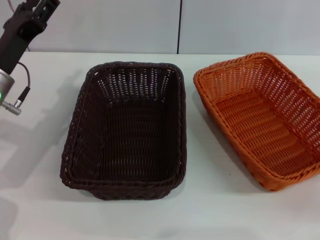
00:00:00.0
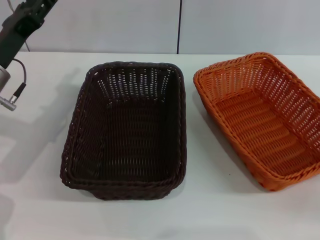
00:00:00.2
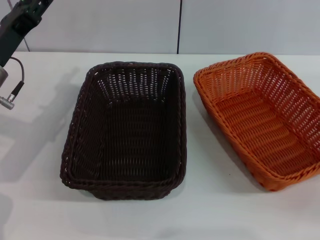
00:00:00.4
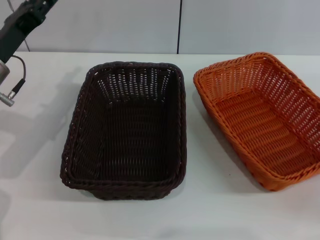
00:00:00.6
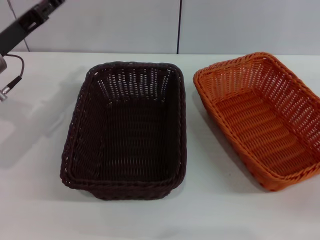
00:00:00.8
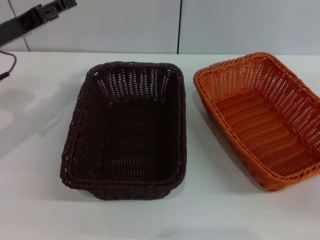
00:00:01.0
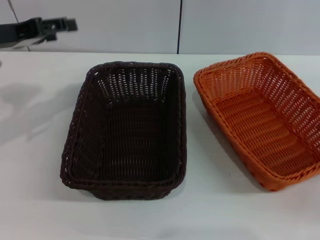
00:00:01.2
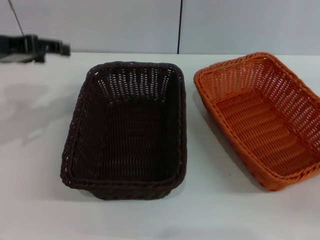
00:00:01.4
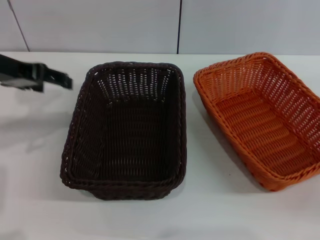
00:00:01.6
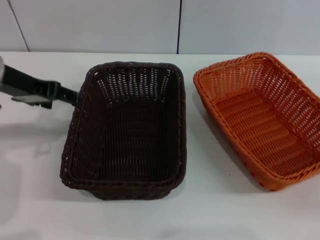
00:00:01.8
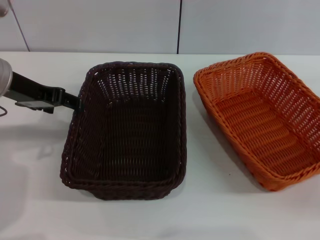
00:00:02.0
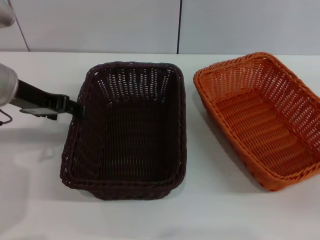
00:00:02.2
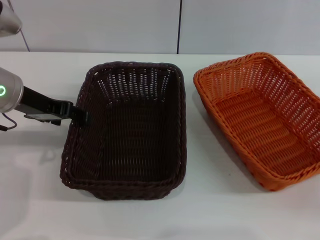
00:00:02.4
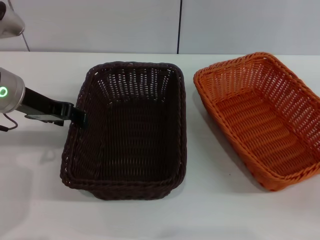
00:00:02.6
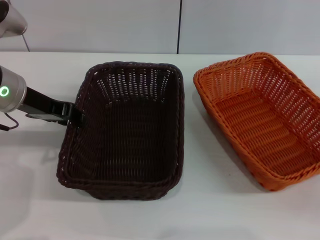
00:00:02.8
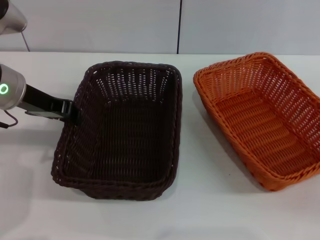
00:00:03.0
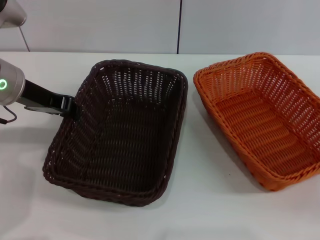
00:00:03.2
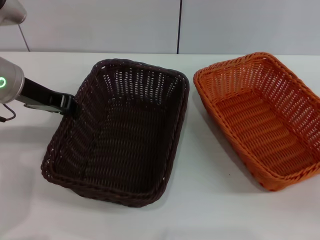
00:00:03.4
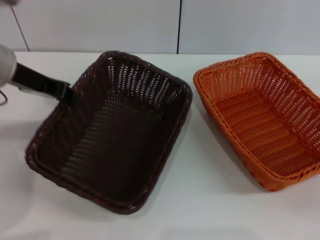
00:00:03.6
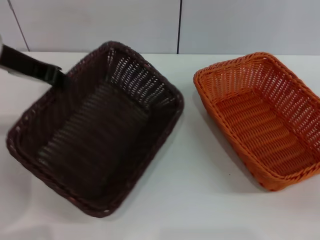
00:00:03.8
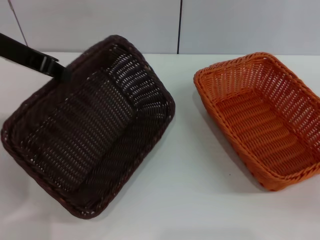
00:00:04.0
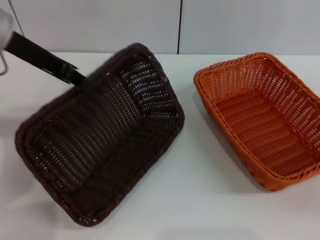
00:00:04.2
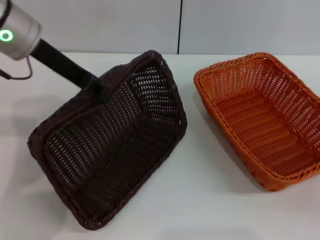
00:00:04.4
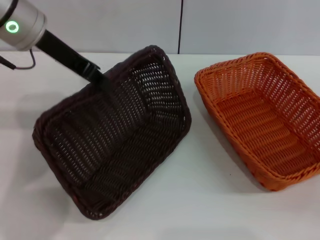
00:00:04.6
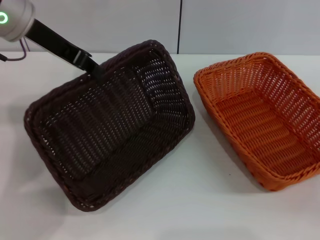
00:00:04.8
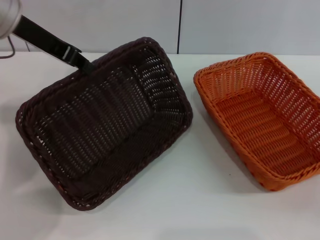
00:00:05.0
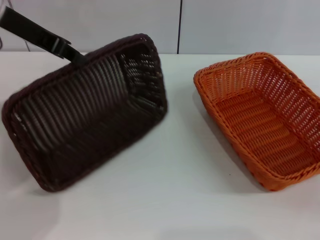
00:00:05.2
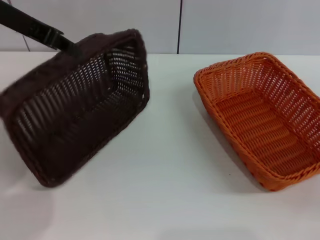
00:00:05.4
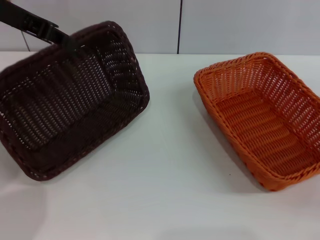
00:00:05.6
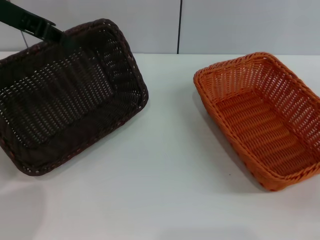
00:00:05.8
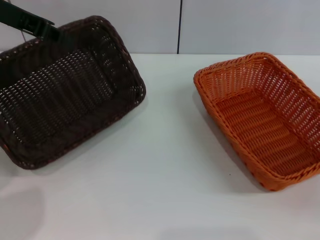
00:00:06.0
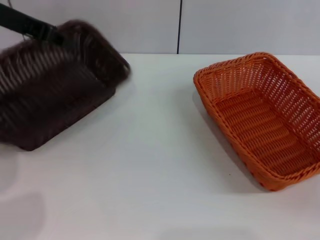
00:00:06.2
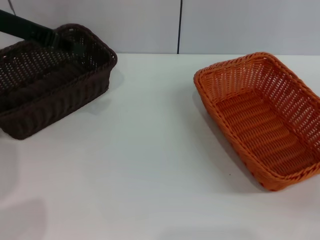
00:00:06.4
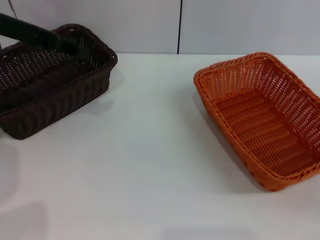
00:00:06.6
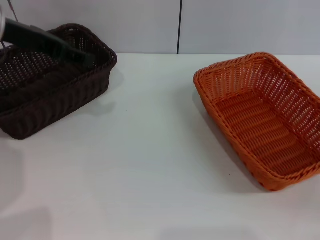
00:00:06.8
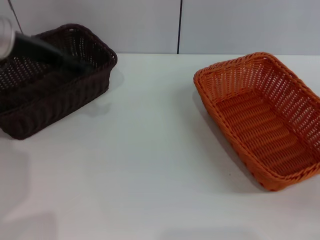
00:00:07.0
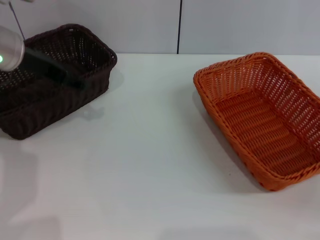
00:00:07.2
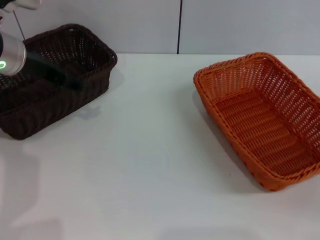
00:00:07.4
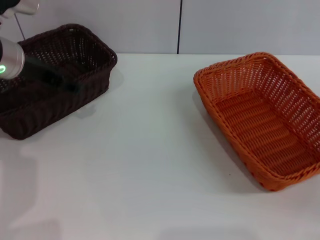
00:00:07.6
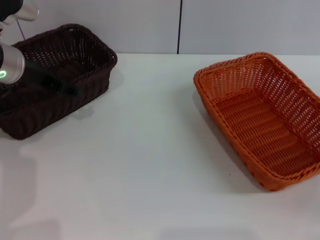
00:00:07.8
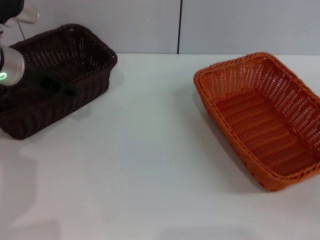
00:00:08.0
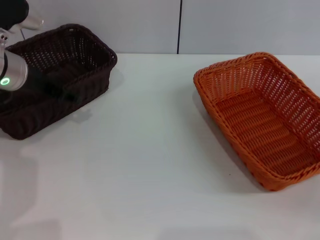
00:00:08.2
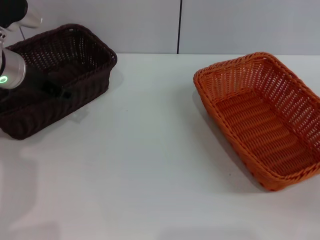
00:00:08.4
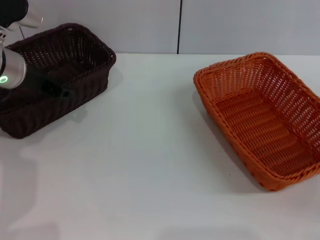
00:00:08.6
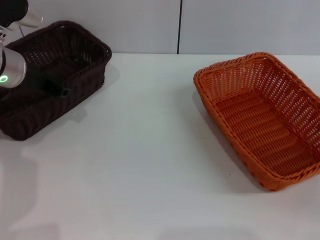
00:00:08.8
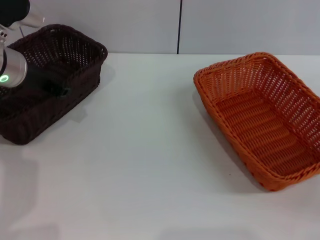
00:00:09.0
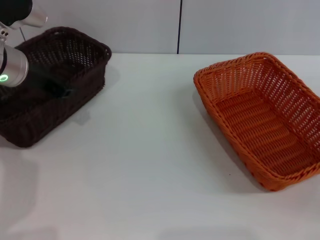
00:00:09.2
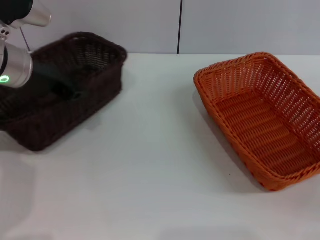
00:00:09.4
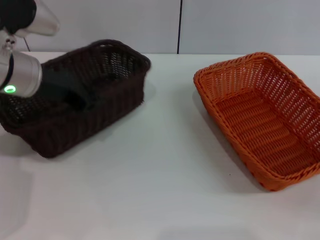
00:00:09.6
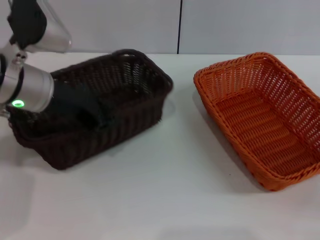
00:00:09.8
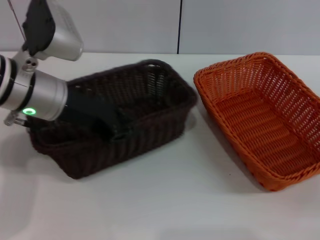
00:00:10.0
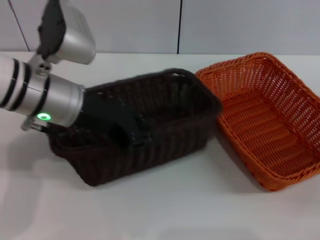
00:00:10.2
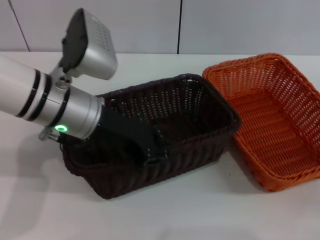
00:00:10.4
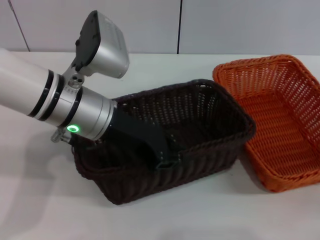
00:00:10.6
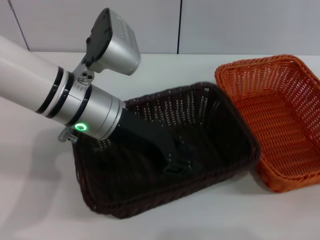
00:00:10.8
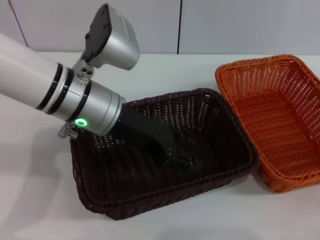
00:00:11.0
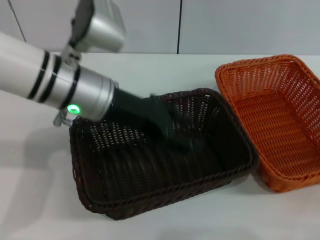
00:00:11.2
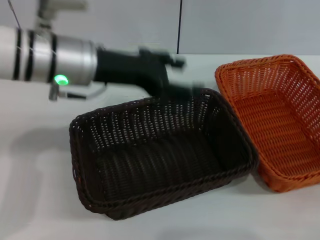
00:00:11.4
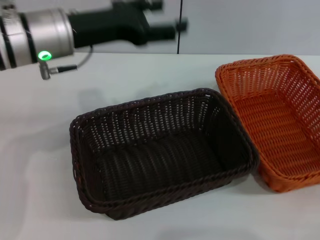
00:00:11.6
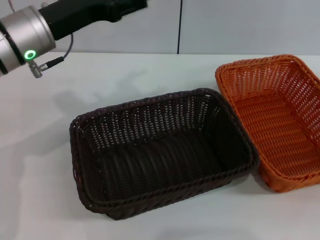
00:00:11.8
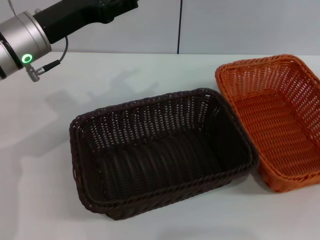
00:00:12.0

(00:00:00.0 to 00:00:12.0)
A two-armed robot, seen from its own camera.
Step, 00:00:00.0 - 00:00:03.8: Pick up the dark basket with the left gripper.
Step, 00:00:04.0 - 00:00:10.8: Place the dark basket in the center of view with the left gripper.
00:00:00.0 - 00:00:01.6: The left gripper heads upward, covering approximately 10 cm.
00:00:01.6 - 00:00:03.0: The left gripper ends up approximately 5 cm from where it was, and closes.
00:00:03.0 - 00:00:04.4: The left gripper travels upward by some 5 cm.
00:00:04.4 - 00:00:06.0: The left gripper goes about 5 cm to the left.
00:00:06.0 - 00:00:07.6: The left gripper goes some 10 cm downward, and opens.
00:00:07.6 - 00:00:09.0: The left gripper closes its fingers.
00:00:09.0 - 00:00:10.4: The left gripper heads to the right and backward, covering about 15 cm.
00:00:10.4 - 00:00:12.0: The left gripper moves to the left, some 5 cm, and opens up, while the right gripper shifts some 10 cm upward and to the right.

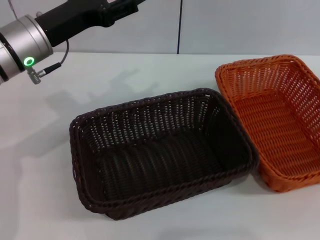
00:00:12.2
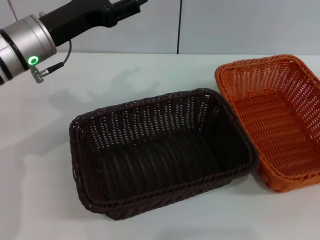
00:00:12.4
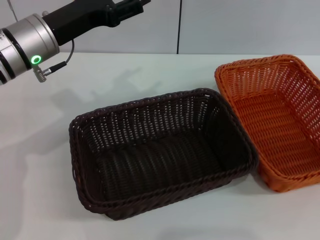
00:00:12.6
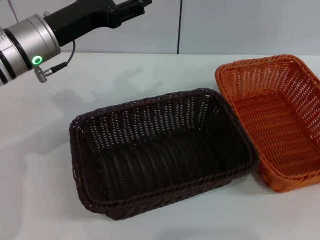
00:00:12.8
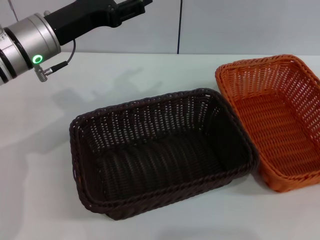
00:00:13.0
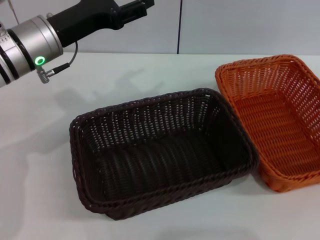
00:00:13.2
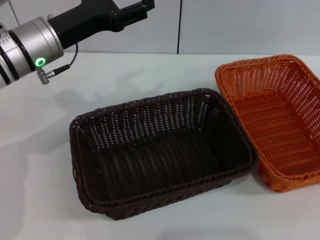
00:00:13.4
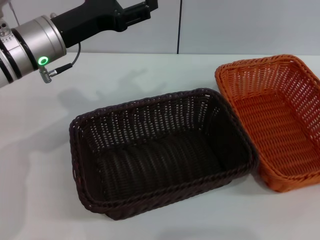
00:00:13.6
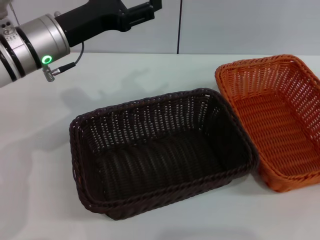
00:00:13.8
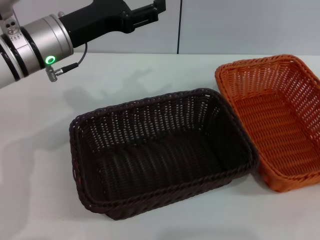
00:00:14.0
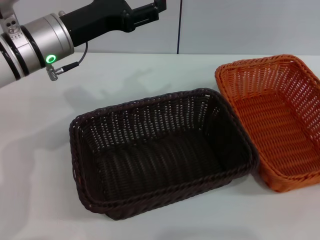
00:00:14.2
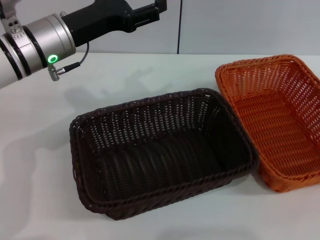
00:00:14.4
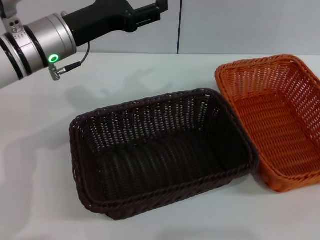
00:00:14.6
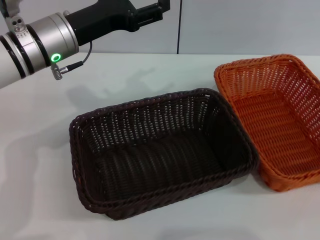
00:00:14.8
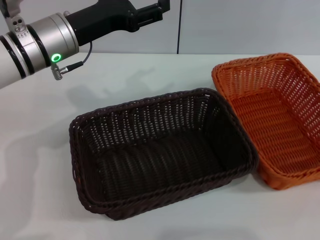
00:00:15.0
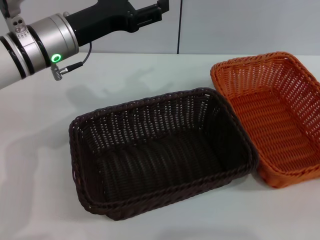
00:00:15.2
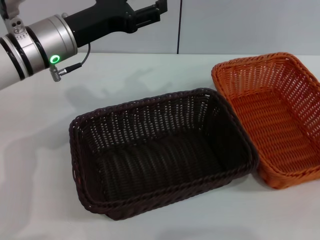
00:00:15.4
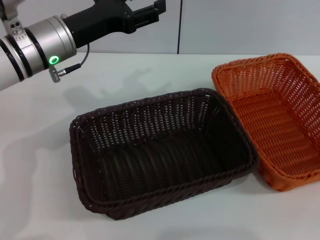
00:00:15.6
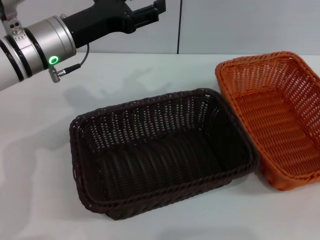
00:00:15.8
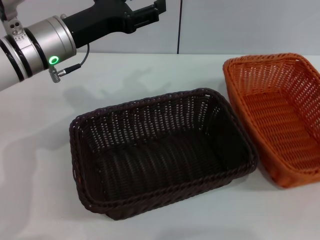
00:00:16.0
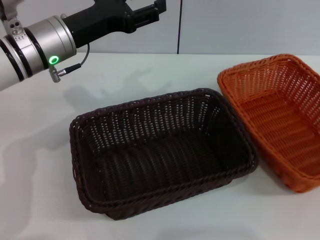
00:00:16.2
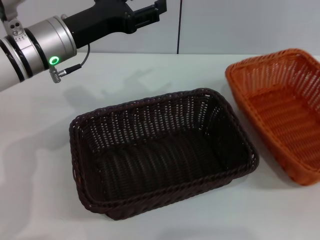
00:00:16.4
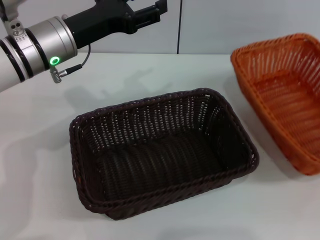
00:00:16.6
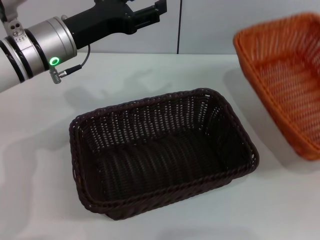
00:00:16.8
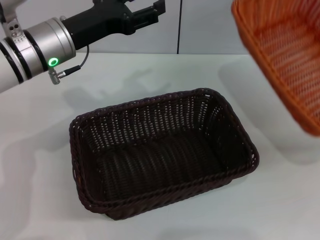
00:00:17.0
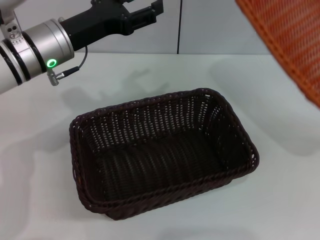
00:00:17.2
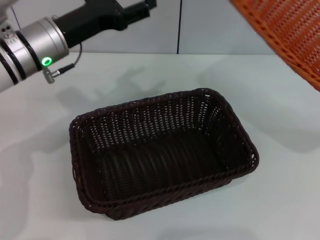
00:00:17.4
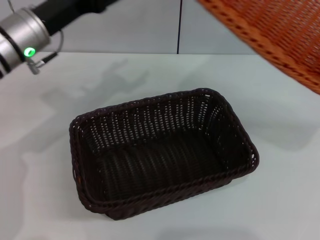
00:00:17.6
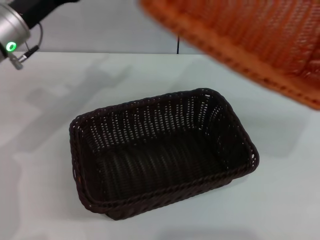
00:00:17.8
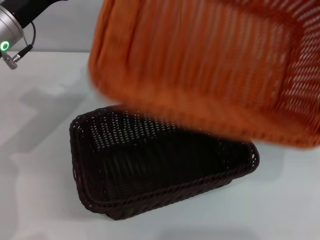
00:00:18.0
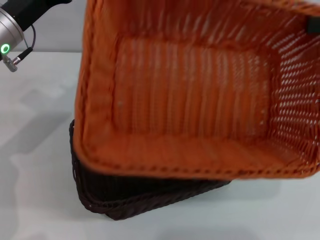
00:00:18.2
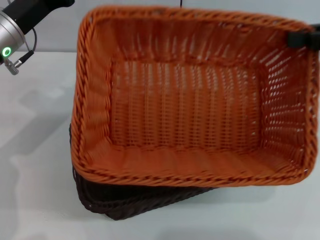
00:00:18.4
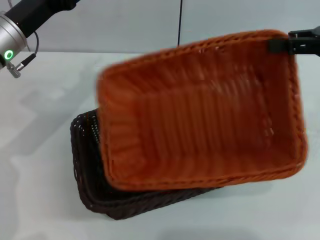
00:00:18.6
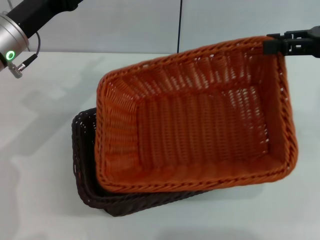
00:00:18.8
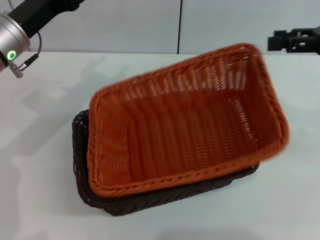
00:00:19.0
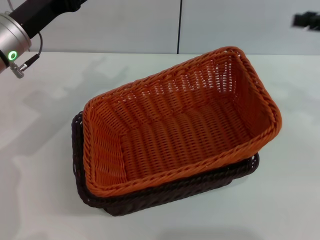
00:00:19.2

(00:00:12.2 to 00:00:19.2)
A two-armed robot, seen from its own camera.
Step, 00:00:12.2 - 00:00:16.4: Pick up the light basket with the right gripper.
Step, 00:00:16.6 - 00:00:18.8: Place the light basket on the dark basket with the right gripper.
00:00:13.6 - 00:00:15.0: The right gripper shifts by some 5 cm.
00:00:15.0 - 00:00:16.4: The right gripper closes its fingers.
00:00:16.4 - 00:00:17.8: The right gripper travels upward, forward and to the left by about 15 cm. The left gripper shifts some 5 cm to the left.
00:00:17.8 - 00:00:19.2: The right gripper moves to the left, about 5 cm, and opens up.
